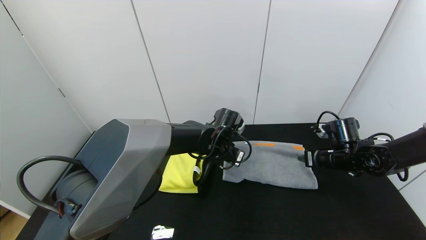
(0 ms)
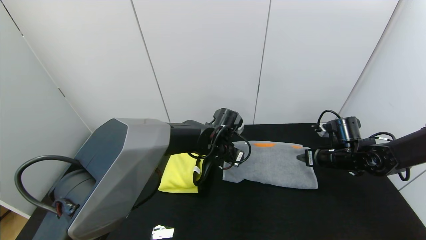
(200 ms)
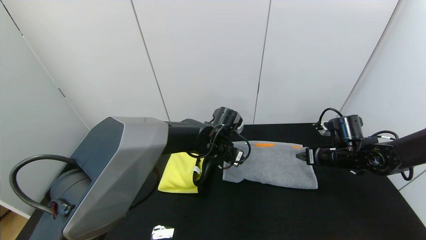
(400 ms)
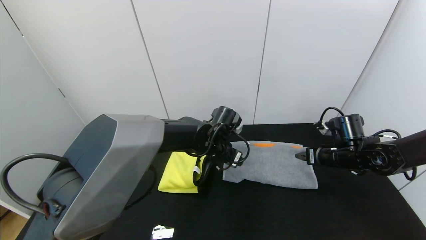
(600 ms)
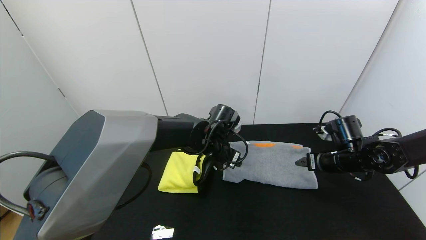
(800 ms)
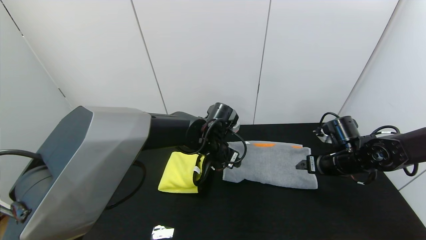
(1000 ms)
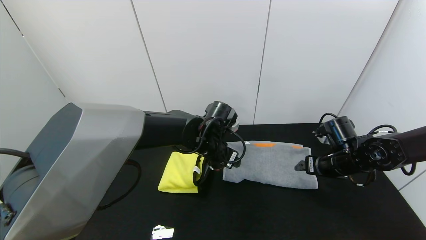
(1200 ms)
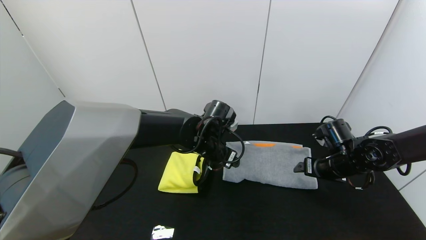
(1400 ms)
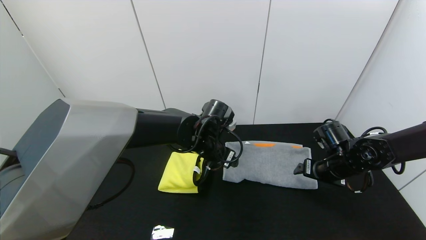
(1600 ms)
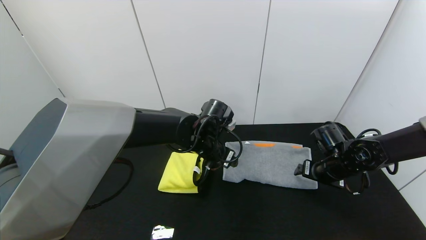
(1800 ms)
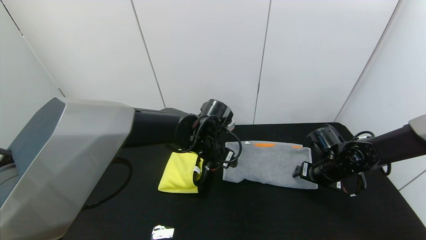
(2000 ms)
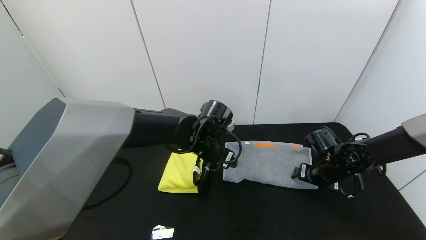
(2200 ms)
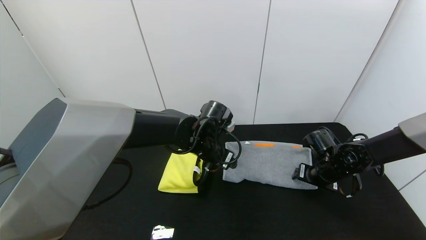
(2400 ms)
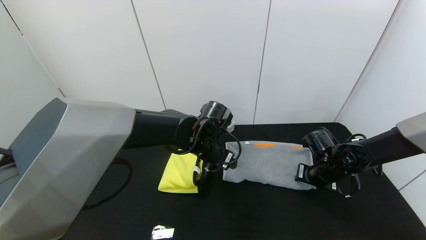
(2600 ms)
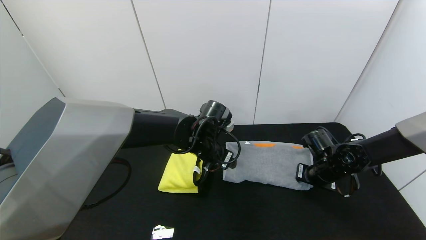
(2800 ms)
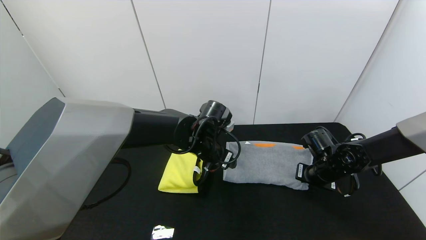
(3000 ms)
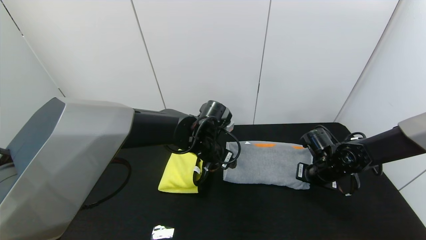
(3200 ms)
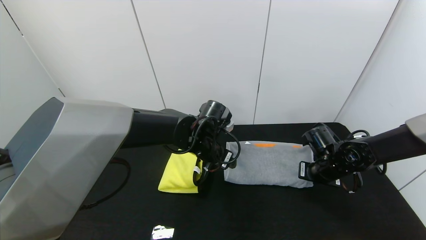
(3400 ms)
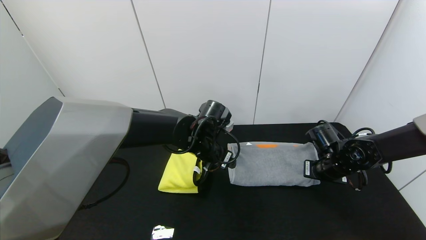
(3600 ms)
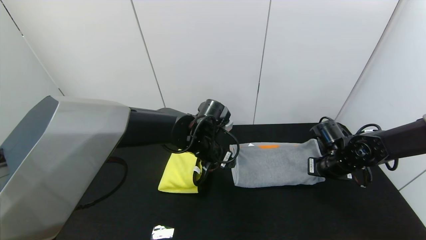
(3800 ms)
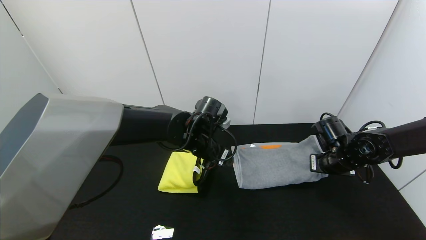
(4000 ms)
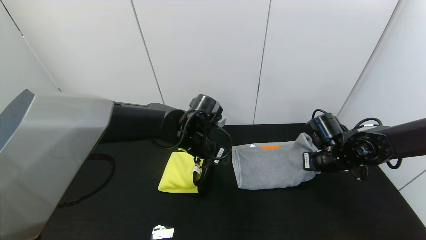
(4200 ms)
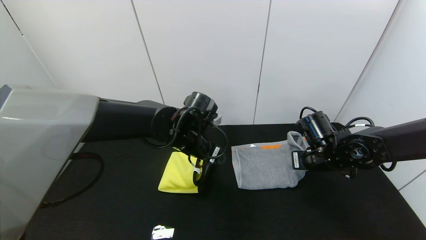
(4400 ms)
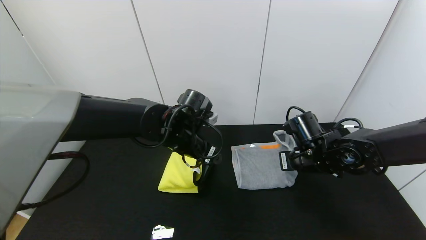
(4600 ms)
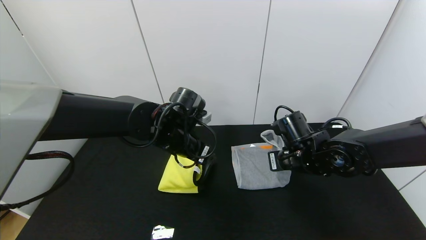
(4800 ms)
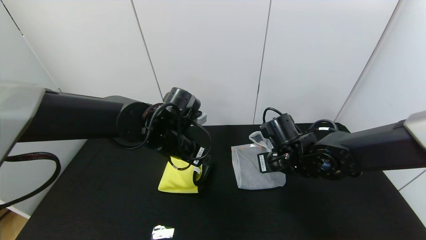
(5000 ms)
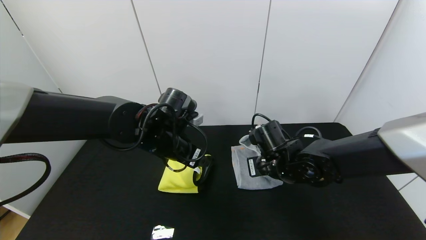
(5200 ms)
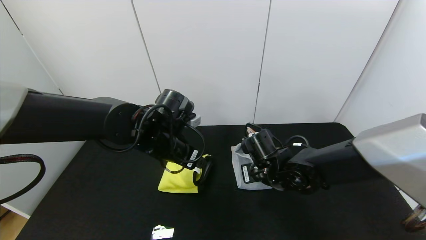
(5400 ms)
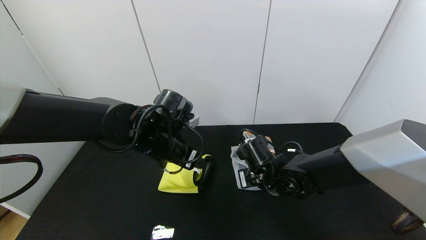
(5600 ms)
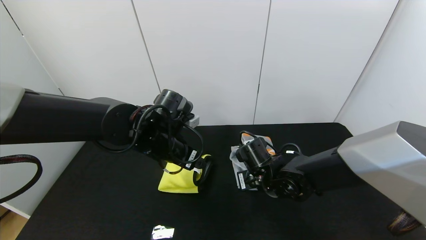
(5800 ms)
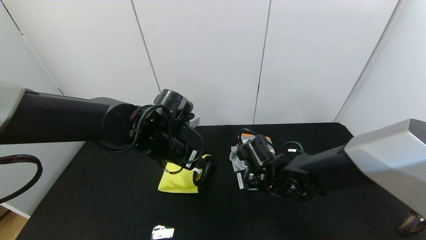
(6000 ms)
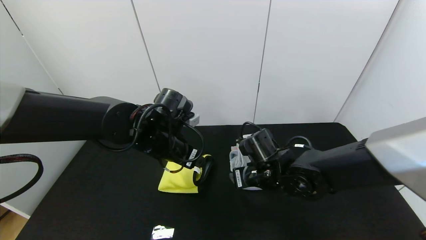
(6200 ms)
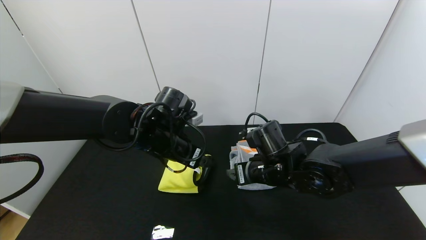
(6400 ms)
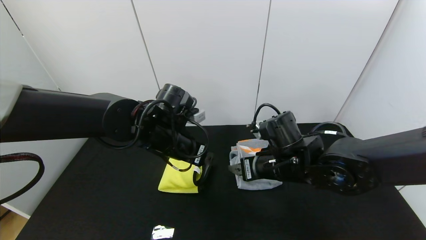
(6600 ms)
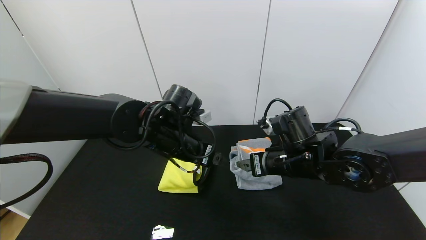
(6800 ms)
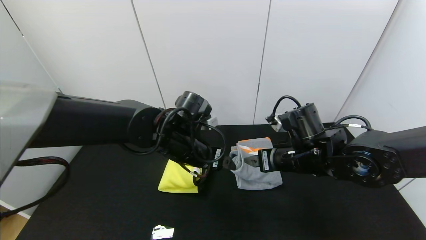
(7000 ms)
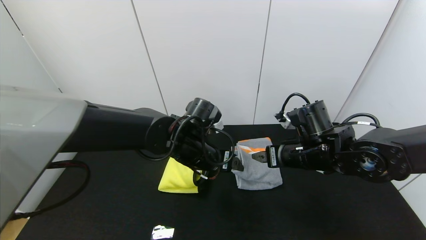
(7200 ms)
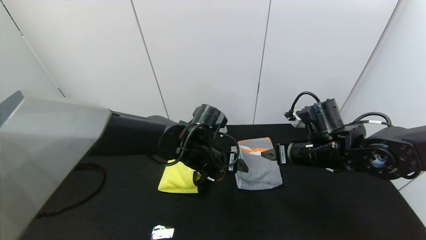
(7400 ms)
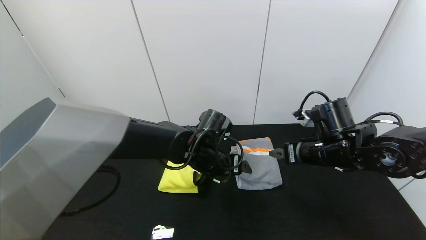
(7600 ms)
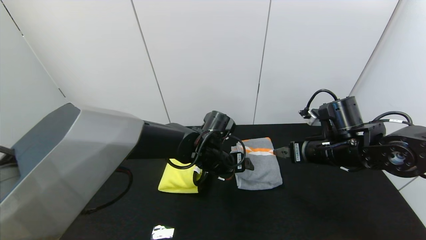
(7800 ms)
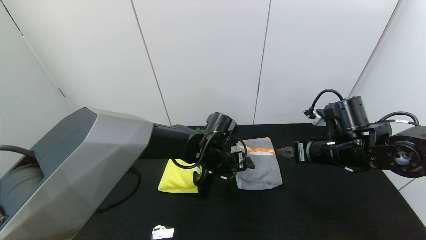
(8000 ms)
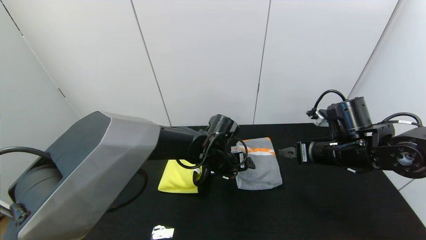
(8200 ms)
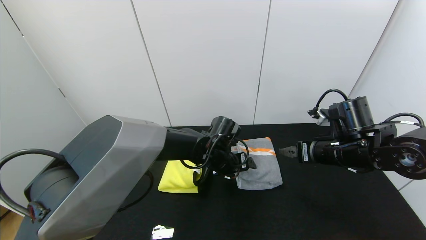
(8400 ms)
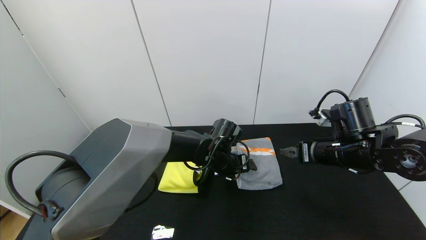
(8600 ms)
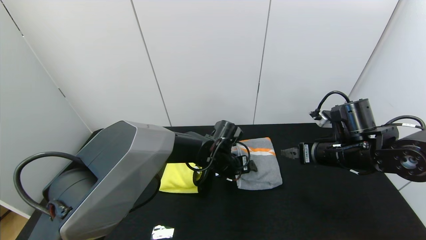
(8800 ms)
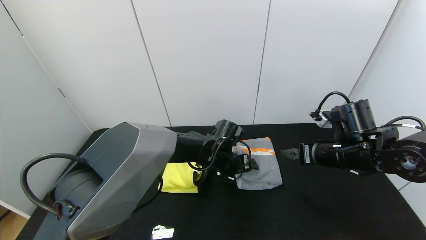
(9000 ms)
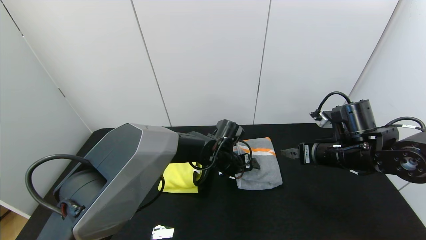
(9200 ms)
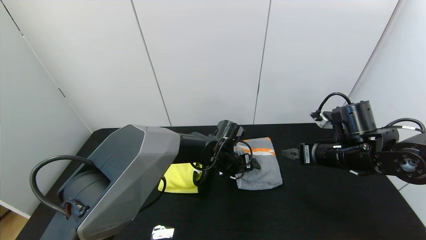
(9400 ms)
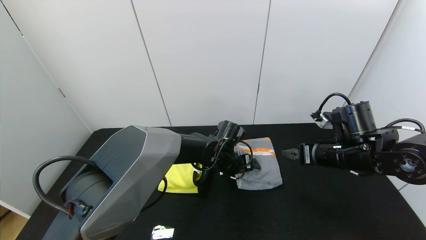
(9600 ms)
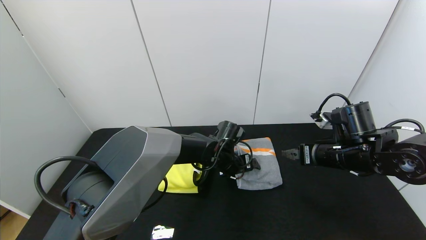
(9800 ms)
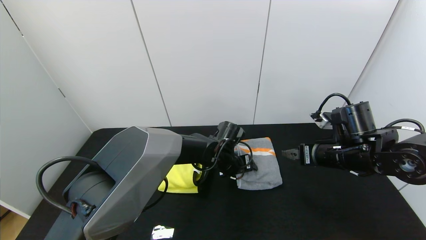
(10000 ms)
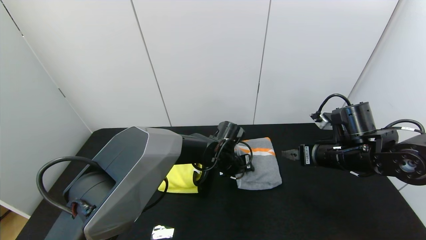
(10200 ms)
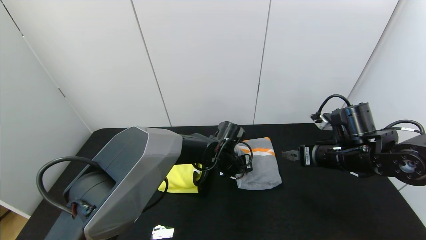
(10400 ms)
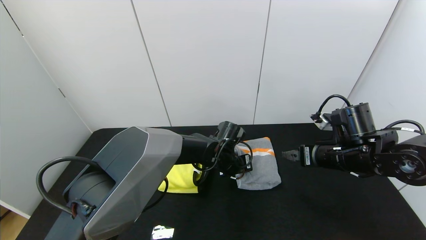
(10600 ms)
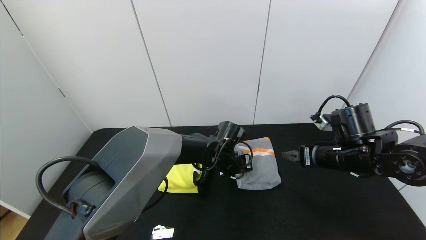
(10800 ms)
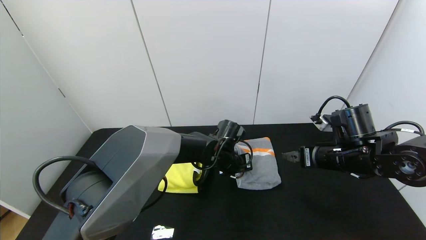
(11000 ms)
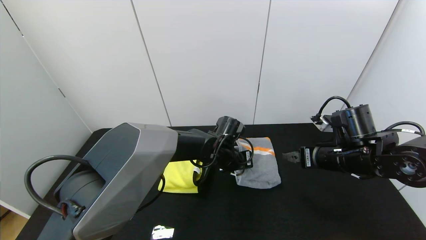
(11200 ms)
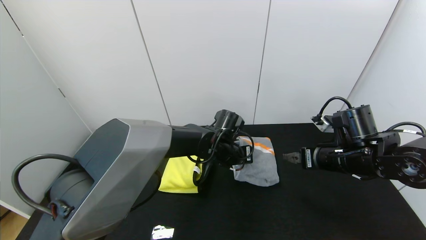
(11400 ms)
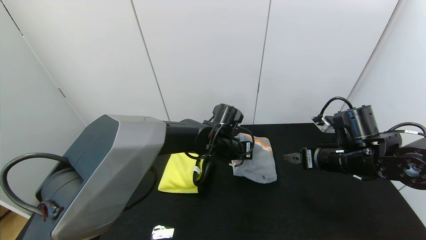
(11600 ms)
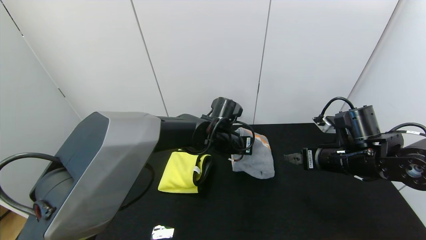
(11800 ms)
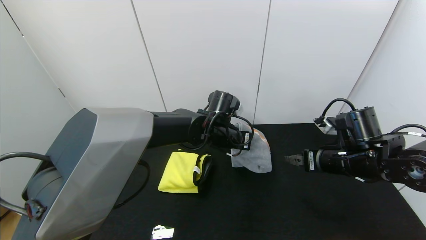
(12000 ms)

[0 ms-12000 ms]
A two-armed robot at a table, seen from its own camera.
Task of the whole recording: Use the gripper to fold the yellow towel and grey towel in half twice,then put the yellow towel on the grey towel.
Step, 1000 ms to 6800 ms: Fold the gray towel from right to left with right gripper.
0 ms to 1600 ms: The right gripper opens its fingers, while the left gripper moves approximately 5 cm.
1600 ms to 3000 ms: The right gripper closes up.
3000 ms to 4400 ms: The right gripper moves upward, approximately 5 cm.
4400 ms to 6000 ms: The right gripper goes roughly 15 cm to the left, and opens its fingers. The left gripper ends up about 5 cm from where it was.
6000 ms to 7600 ms: The left gripper heads to the right and downward, covering some 10 cm, while the right gripper is displaced to the right and upward by about 15 cm, and opens up.
7600 ms to 9000 ms: The left gripper shifts by some 10 cm.
9000 ms to 10400 ms: The left gripper closes up.
10400 ms to 12000 ms: The left gripper moves upward, approximately 10 cm.

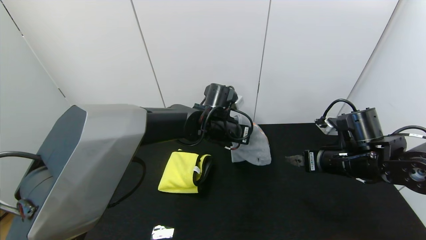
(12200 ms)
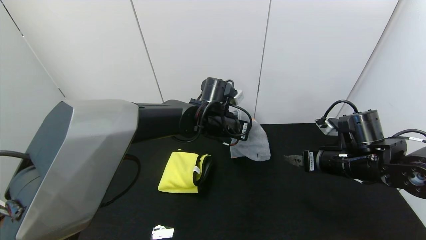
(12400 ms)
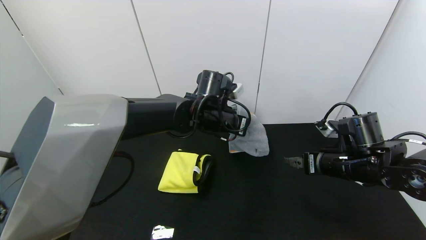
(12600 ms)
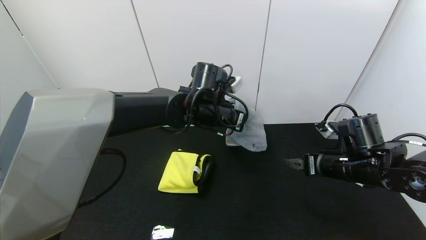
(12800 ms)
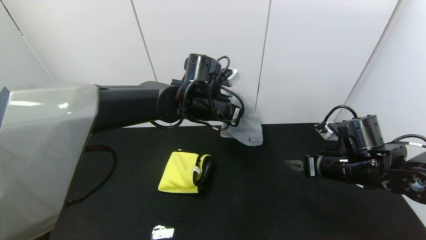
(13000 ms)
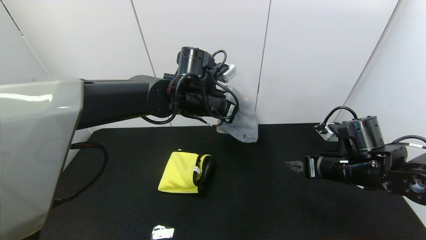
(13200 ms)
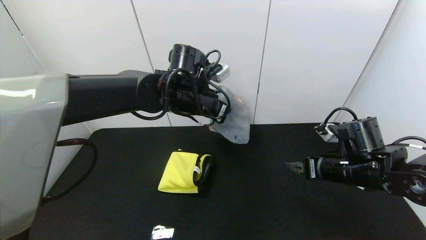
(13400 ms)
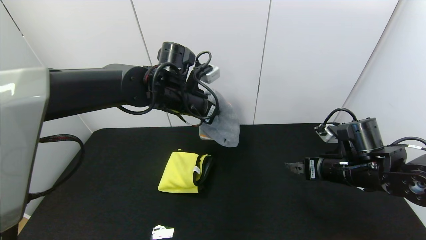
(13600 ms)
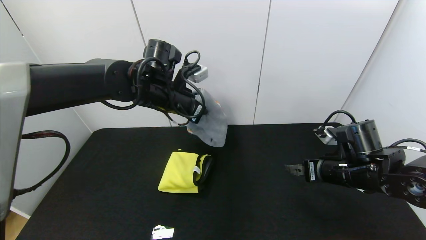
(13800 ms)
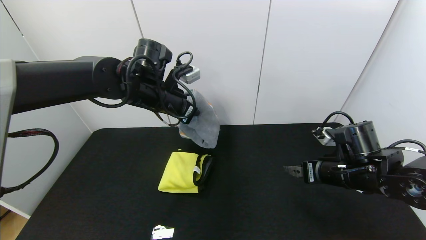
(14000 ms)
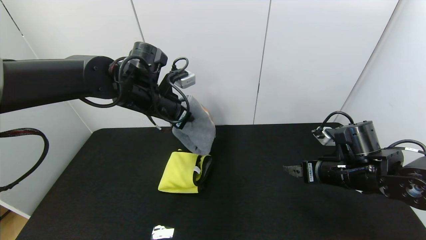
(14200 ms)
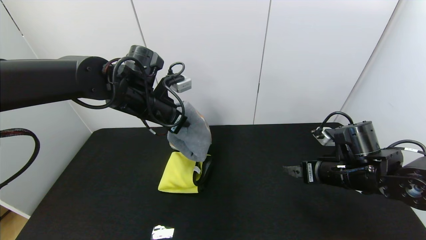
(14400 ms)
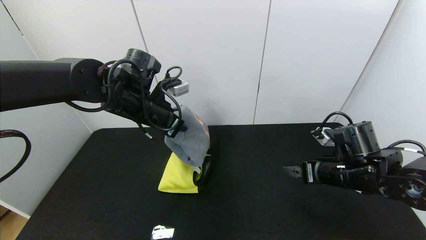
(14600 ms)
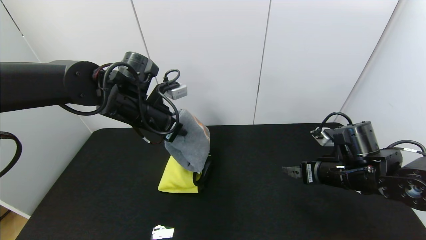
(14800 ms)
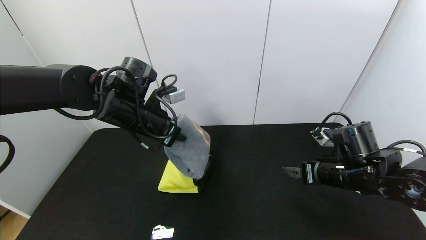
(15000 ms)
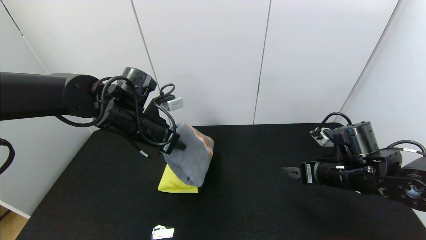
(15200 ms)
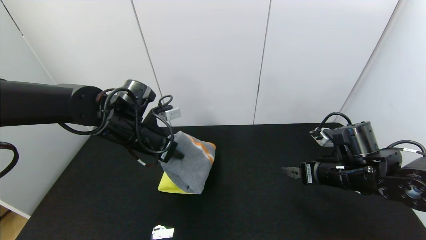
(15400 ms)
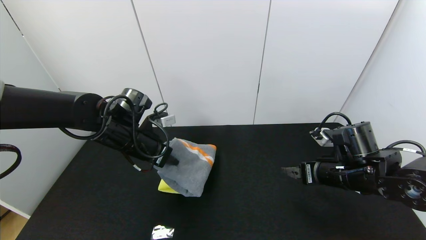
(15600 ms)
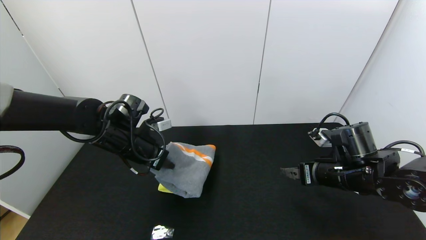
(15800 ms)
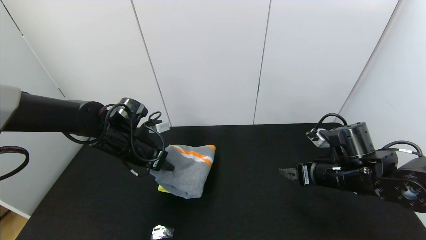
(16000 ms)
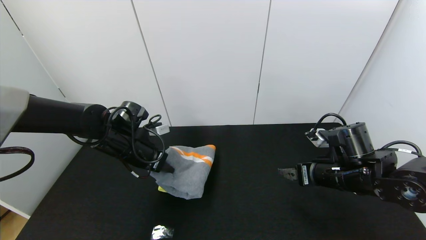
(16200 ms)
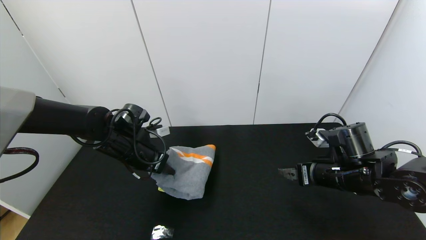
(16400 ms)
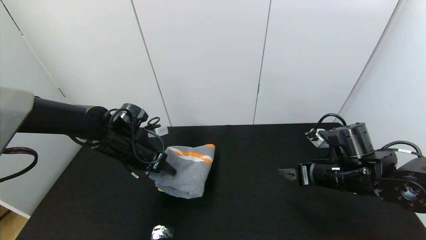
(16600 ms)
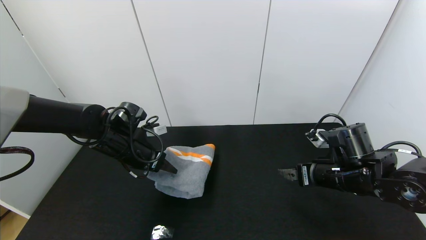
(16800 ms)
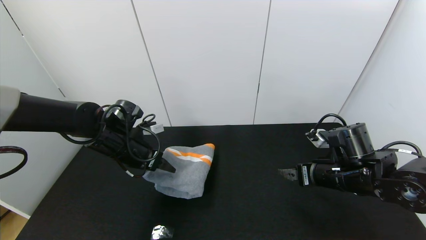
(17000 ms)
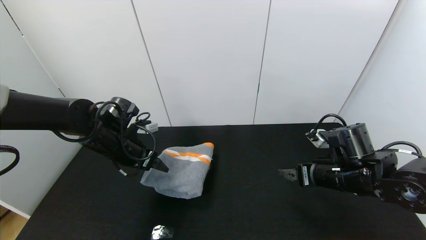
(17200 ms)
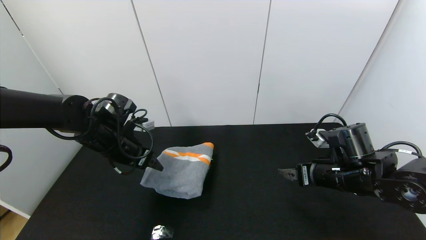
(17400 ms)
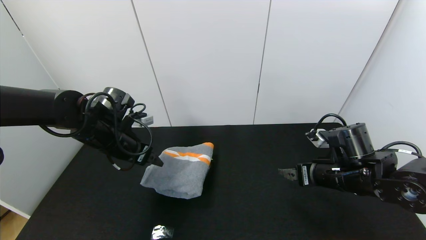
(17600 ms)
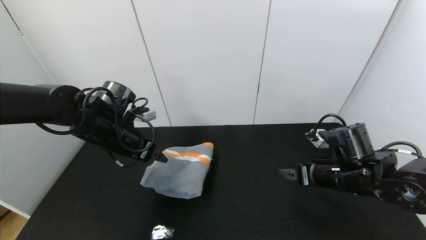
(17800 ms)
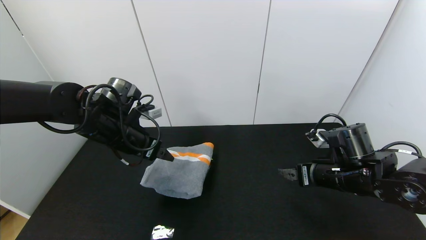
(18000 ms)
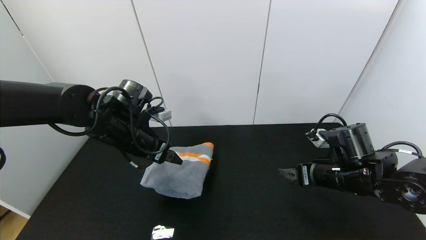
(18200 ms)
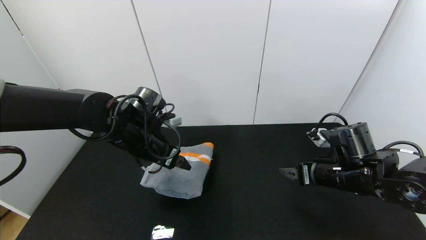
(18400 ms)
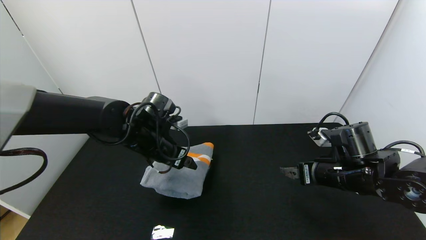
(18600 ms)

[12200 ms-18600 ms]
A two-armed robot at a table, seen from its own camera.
Task of the whole recording: Use the gripper to fold the yellow towel and grey towel in half twice,then put the yellow towel on the grey towel.
12200 ms to 13800 ms: The left gripper shifts approximately 15 cm to the left and upward.
13800 ms to 15400 ms: The left gripper is displaced downward and to the left by about 10 cm.
15400 ms to 17000 ms: The left gripper moves about 5 cm, and opens.
17000 ms to 18600 ms: The left gripper shifts approximately 10 cm to the right.
